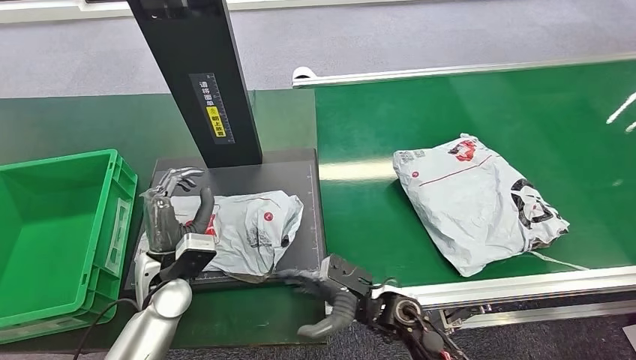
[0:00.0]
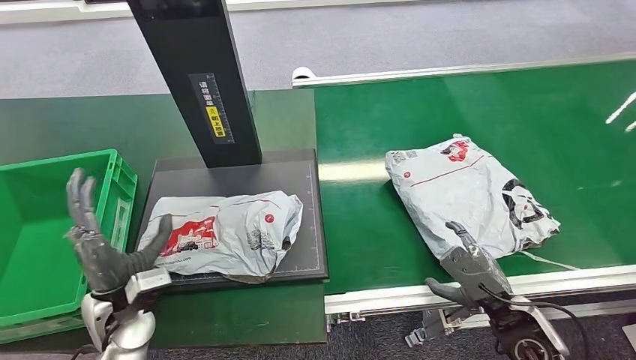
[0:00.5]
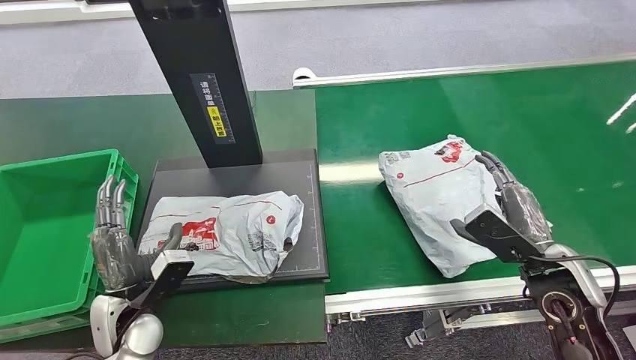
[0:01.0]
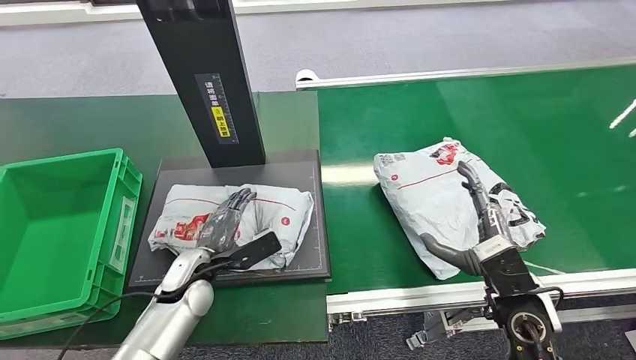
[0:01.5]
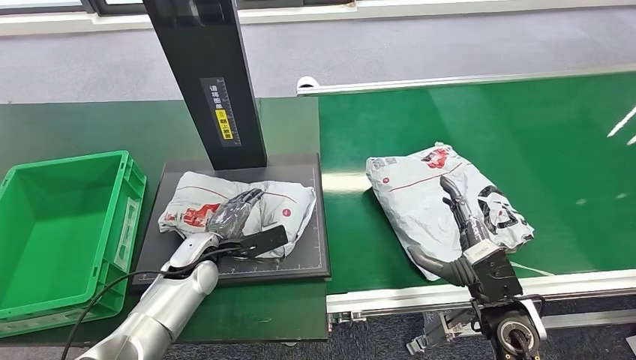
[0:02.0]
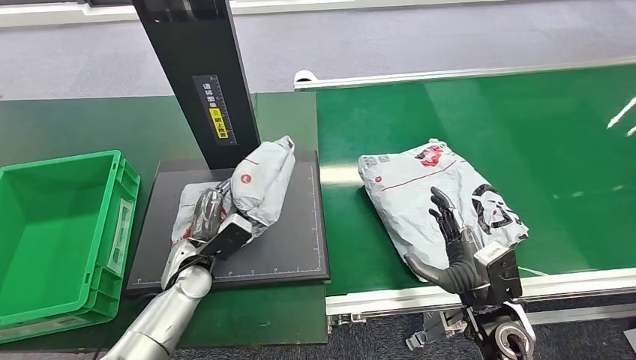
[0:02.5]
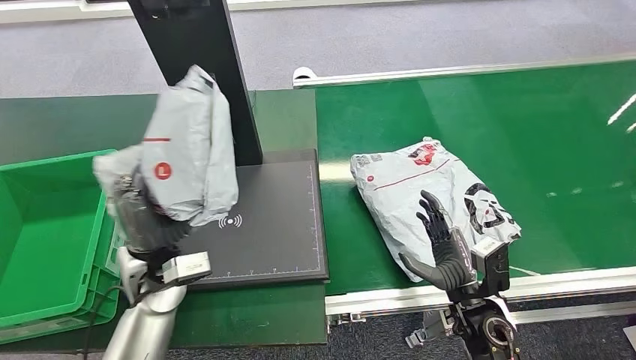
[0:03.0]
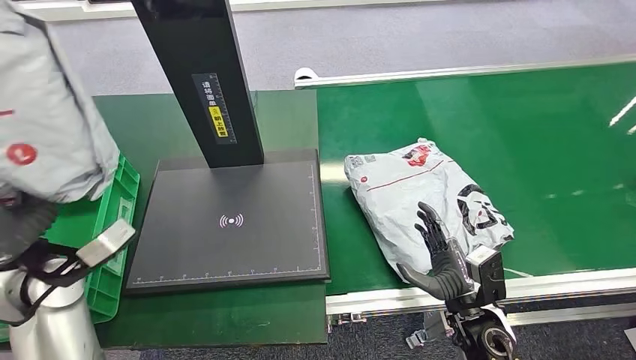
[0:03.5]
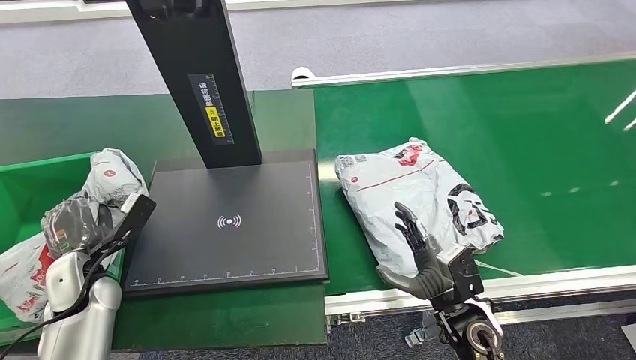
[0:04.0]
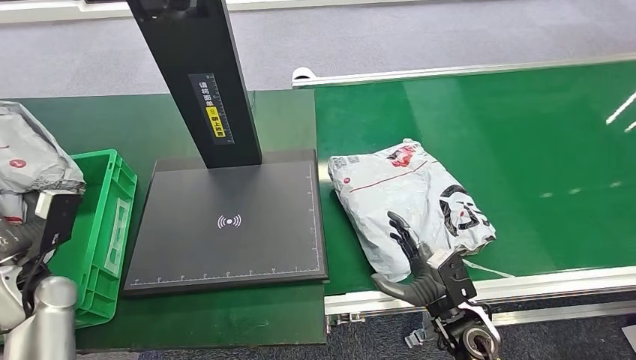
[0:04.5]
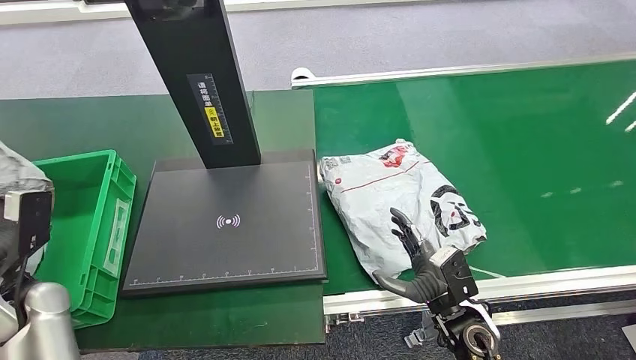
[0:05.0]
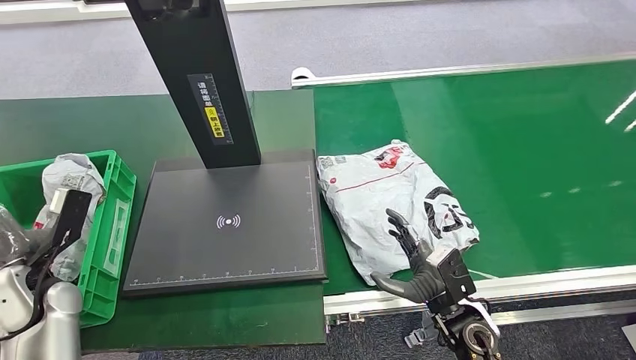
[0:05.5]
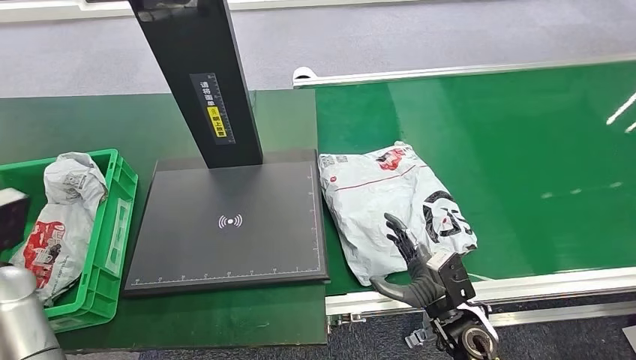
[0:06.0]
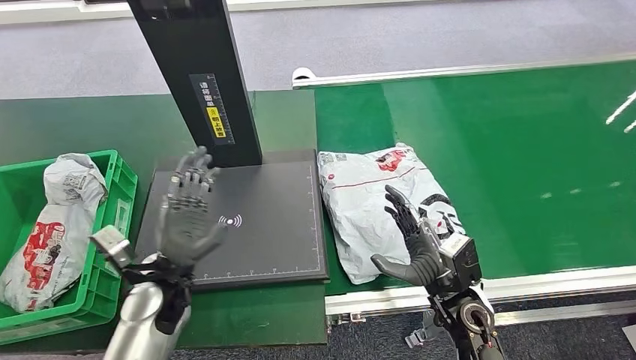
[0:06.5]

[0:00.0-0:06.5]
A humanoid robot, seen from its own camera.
Step, 0:00.0 to 0:04.0: Pick up the package from the inbound machine.
Step, 0:04.5 to 0:06.0: Place the package into the parcel locker.
